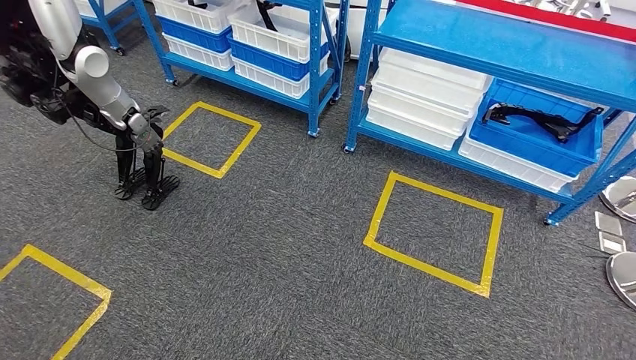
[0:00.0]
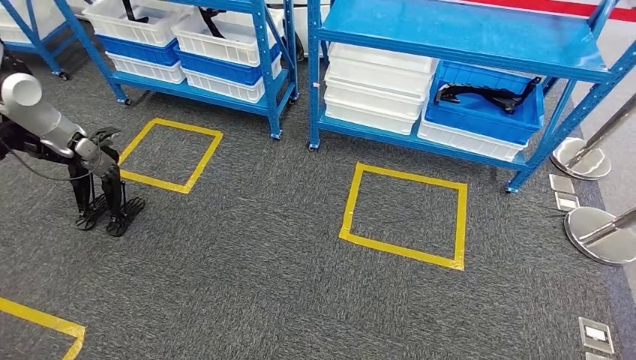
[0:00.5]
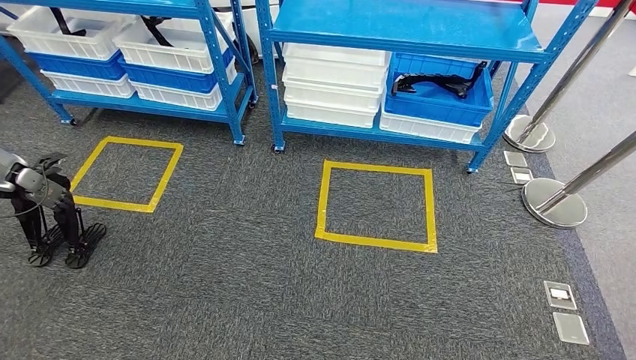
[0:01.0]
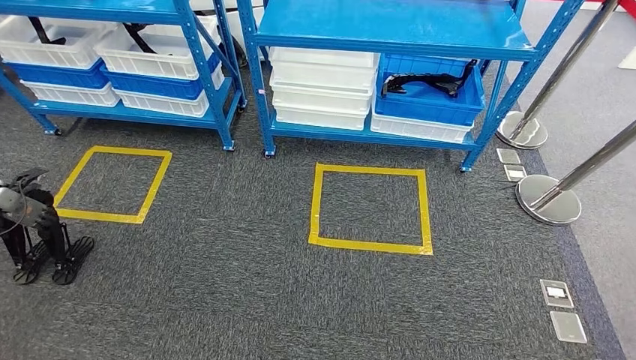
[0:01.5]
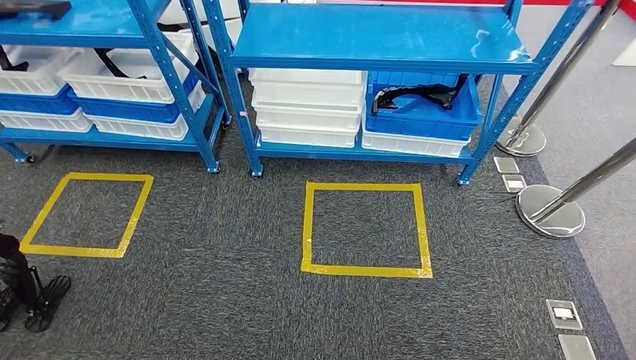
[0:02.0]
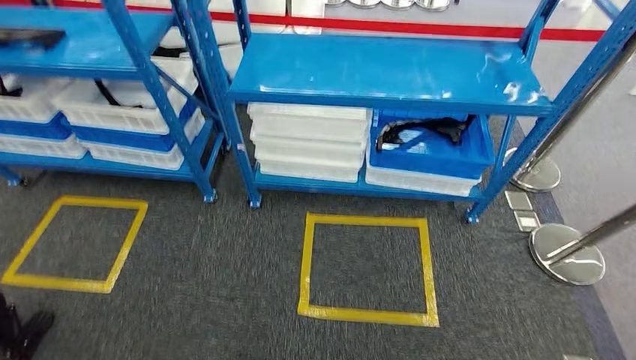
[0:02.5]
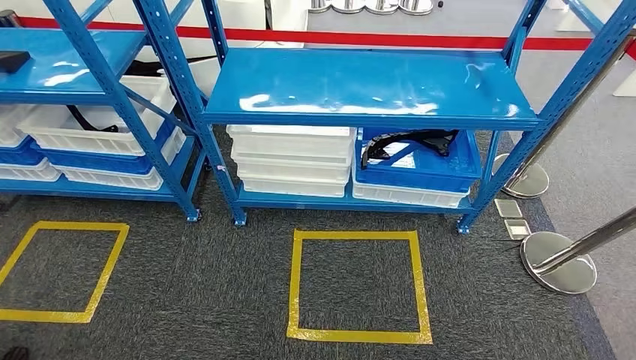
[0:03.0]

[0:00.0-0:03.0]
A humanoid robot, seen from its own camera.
Step, 0:00.0 to 0:02.5: Move to the initial position of the shelf.
